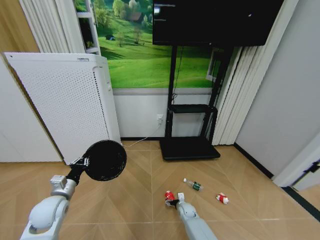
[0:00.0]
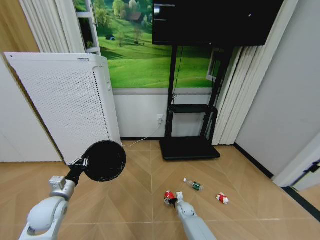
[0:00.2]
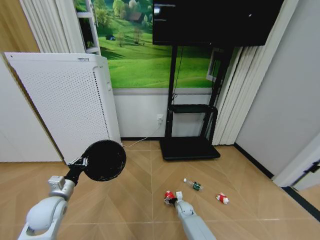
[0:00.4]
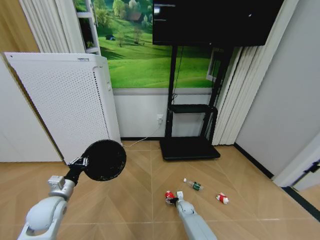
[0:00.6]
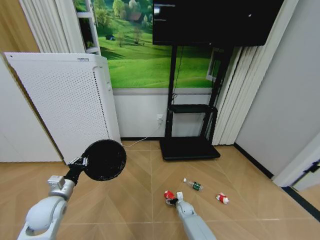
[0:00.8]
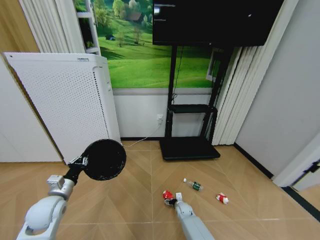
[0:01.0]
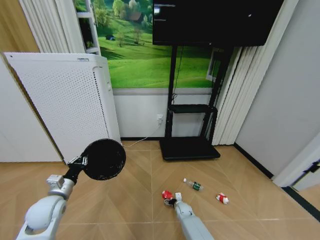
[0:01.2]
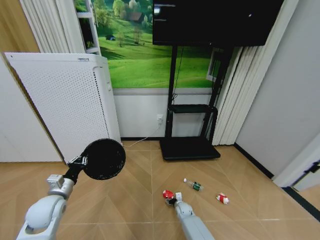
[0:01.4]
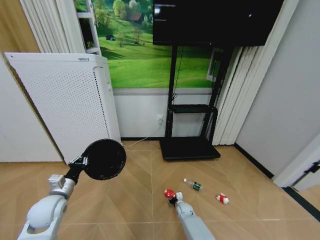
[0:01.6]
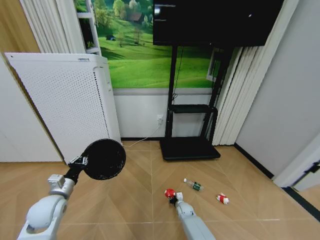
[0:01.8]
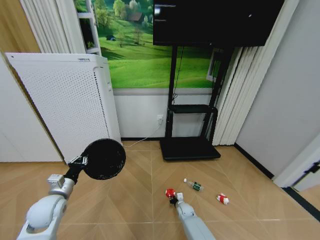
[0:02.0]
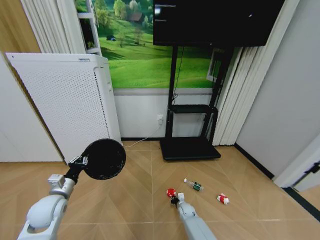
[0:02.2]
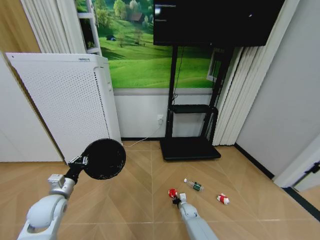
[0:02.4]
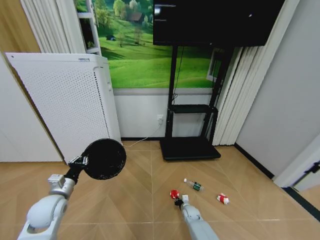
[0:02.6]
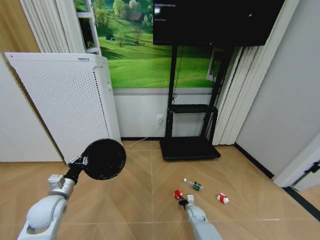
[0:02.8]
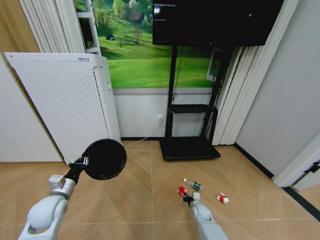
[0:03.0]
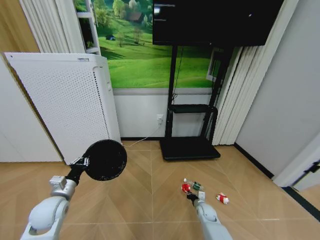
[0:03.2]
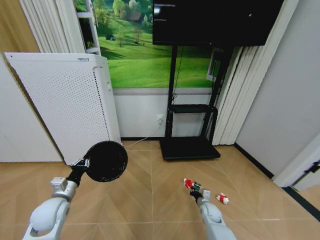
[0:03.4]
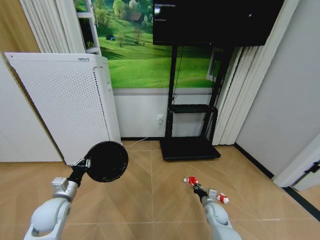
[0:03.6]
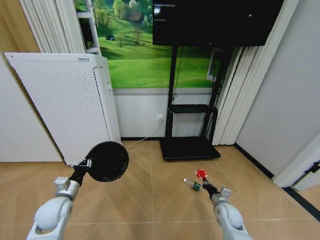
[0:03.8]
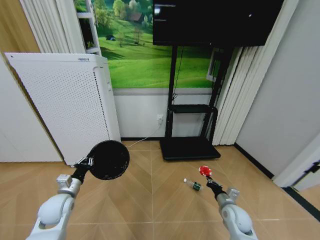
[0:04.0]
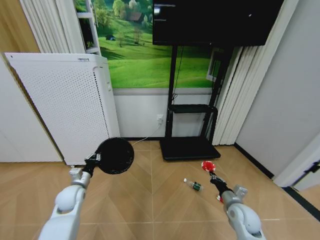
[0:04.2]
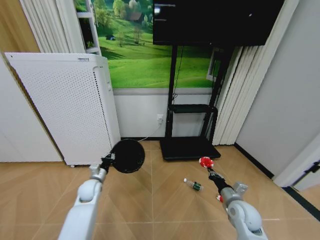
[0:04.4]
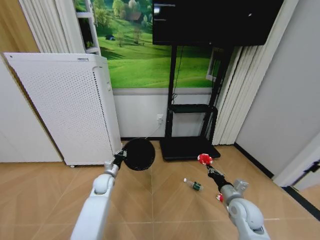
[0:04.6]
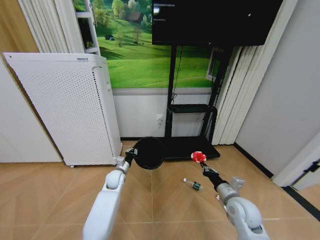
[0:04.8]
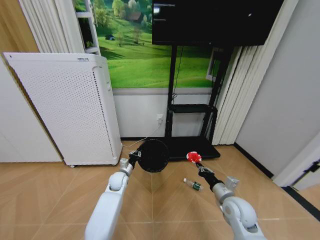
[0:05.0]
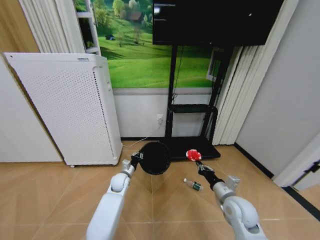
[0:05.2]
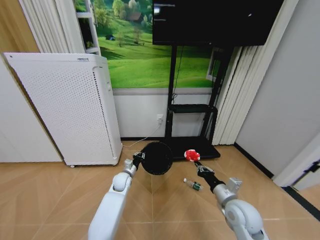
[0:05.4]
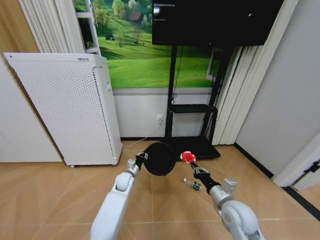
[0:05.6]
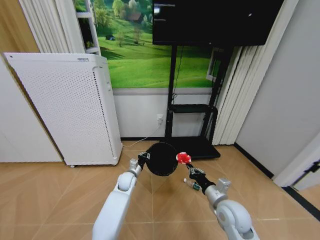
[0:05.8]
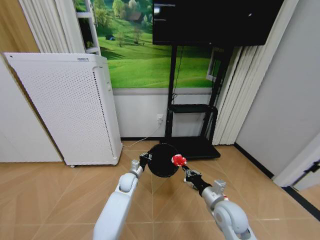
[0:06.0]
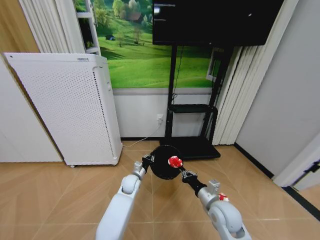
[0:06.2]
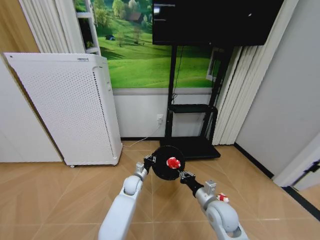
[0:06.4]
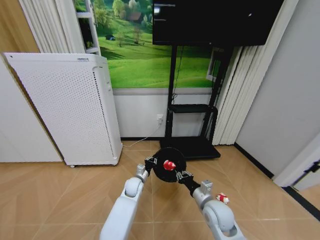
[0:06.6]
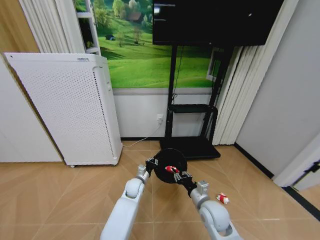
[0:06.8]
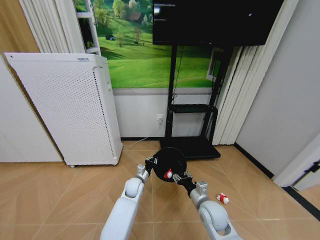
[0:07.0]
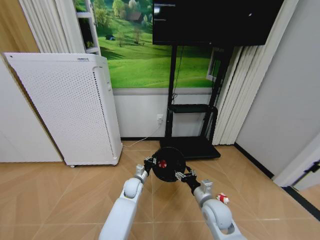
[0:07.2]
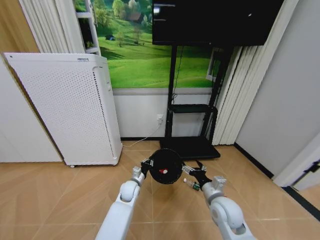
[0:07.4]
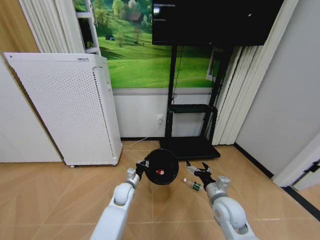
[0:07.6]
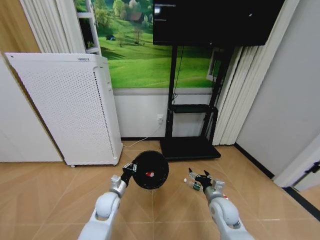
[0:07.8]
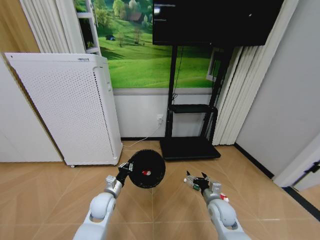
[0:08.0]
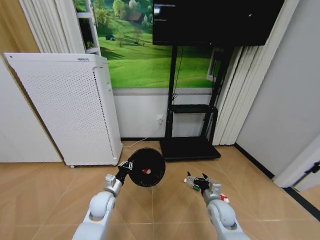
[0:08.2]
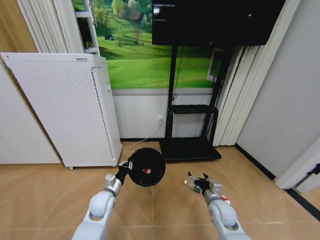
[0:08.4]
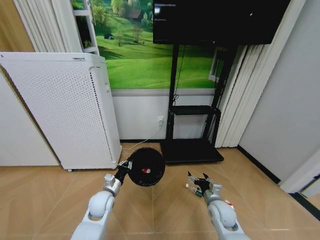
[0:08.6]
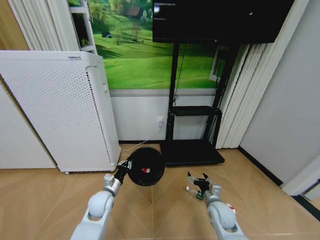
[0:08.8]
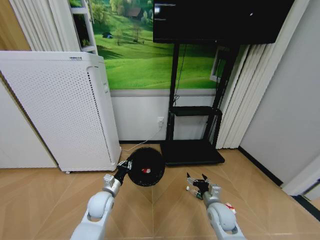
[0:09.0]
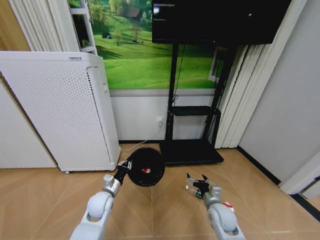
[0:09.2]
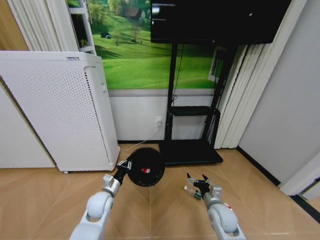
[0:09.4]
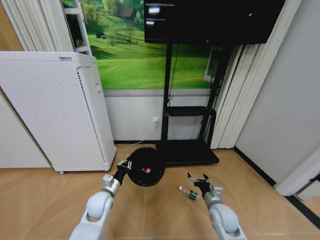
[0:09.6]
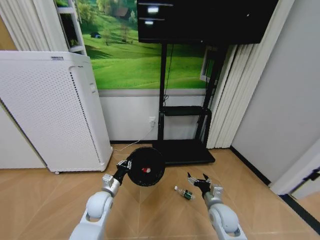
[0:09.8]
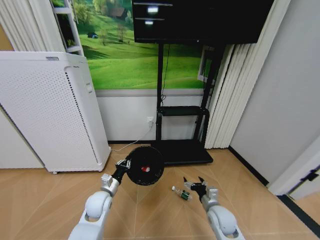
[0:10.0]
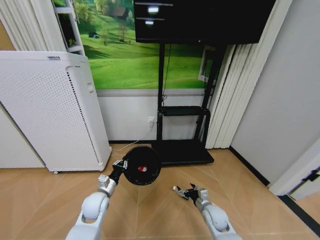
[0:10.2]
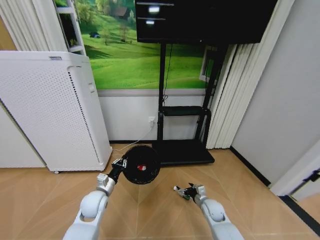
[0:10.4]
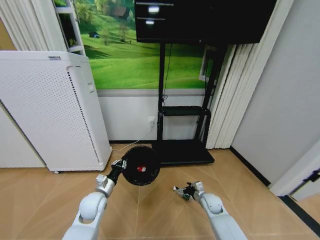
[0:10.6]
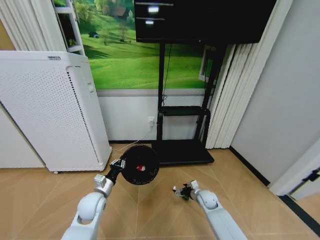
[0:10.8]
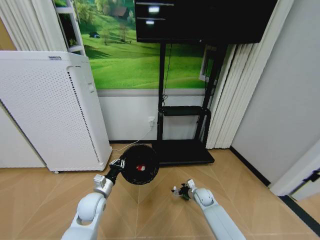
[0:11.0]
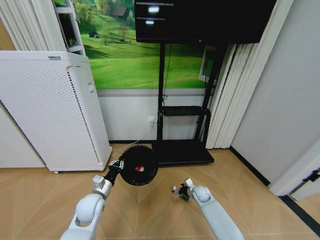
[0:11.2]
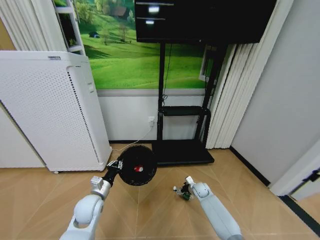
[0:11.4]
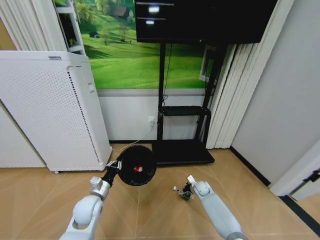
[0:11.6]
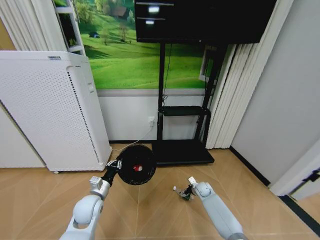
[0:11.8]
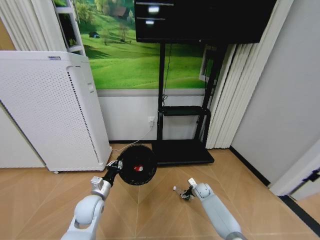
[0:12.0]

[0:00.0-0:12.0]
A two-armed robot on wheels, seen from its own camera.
Task of the whole recording: Pick up the trash bin and place the garbage on the floor into it.
0.0 to 1.6 s: The right gripper closes its fingers.
1.6 to 3.0 s: The right gripper moves to the right, approximately 10 cm, and closes.
3.0 to 4.4 s: The left gripper is displaced forward, downward and to the right by some 15 cm. The right gripper shifts about 25 cm upward.
4.4 to 6.0 s: The right gripper heads to the left, covering some 10 cm. Meanwhile the left gripper moves to the right, approximately 15 cm.
6.0 to 7.6 s: The right gripper opens. Meanwhile the left gripper goes roughly 5 cm backward.
7.6 to 9.0 s: The left gripper shifts some 10 cm to the left and backward; the right gripper travels downward by some 5 cm.
9.0 to 10.4 s: The right gripper travels downward by approximately 10 cm.
10.4 to 12.0 s: The right gripper travels forward and downward by about 15 cm.

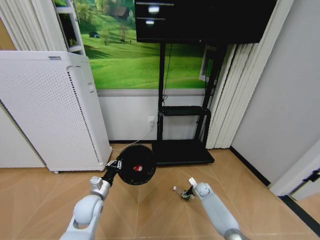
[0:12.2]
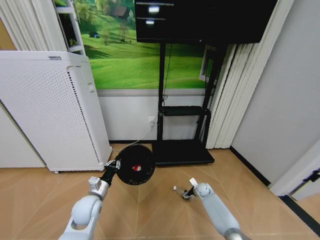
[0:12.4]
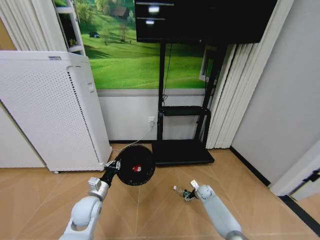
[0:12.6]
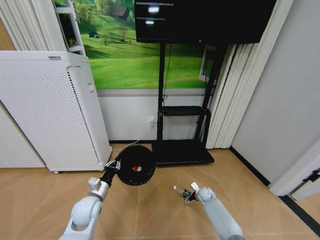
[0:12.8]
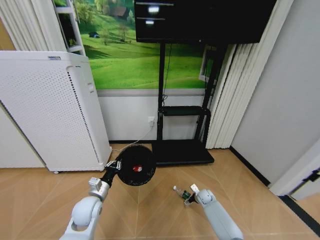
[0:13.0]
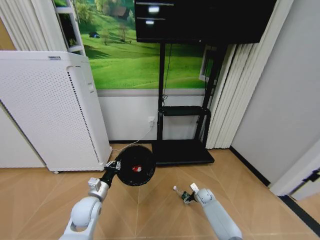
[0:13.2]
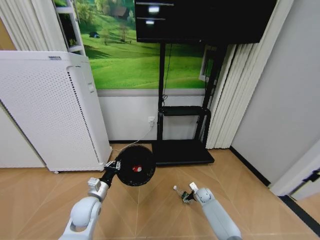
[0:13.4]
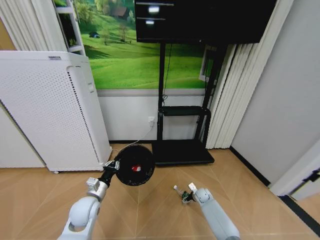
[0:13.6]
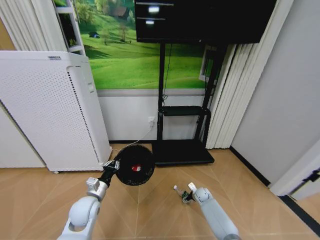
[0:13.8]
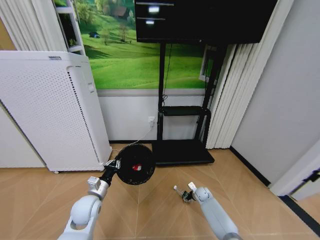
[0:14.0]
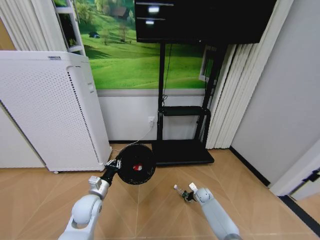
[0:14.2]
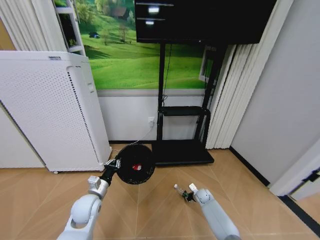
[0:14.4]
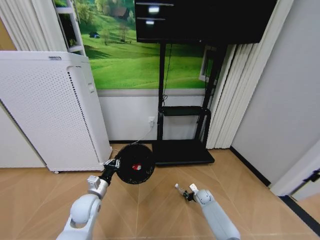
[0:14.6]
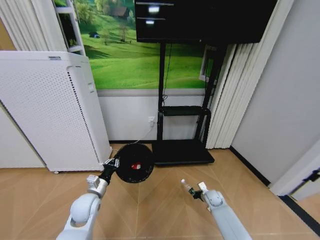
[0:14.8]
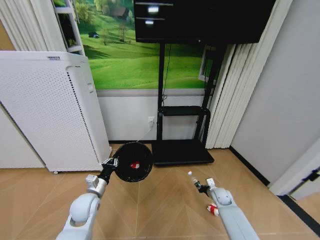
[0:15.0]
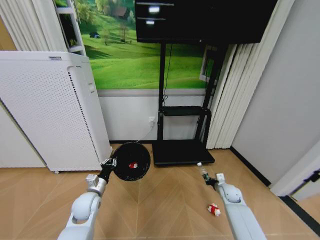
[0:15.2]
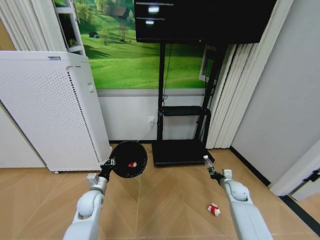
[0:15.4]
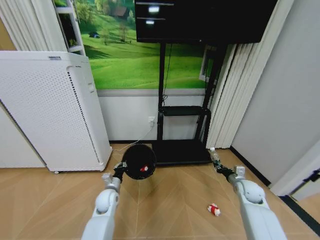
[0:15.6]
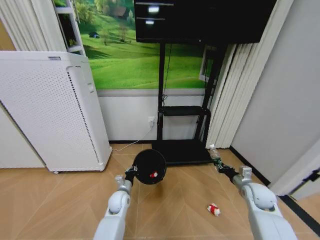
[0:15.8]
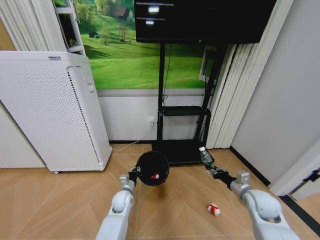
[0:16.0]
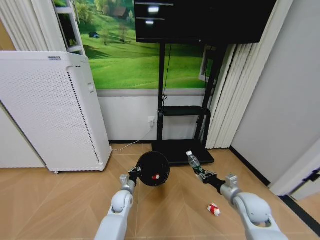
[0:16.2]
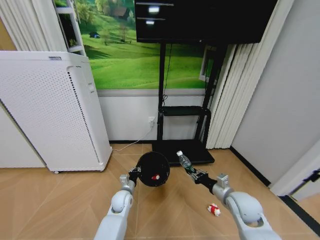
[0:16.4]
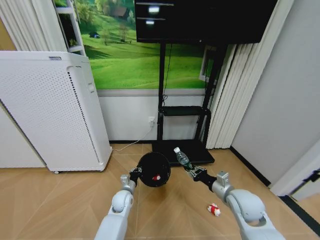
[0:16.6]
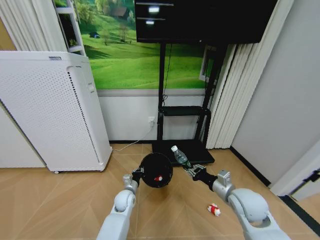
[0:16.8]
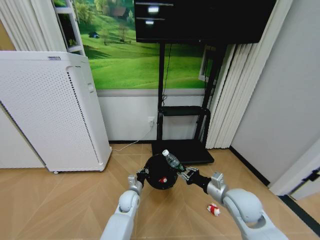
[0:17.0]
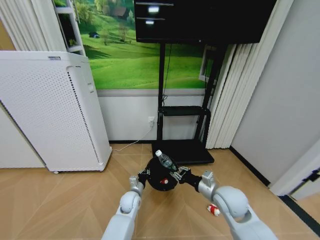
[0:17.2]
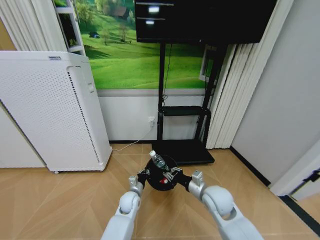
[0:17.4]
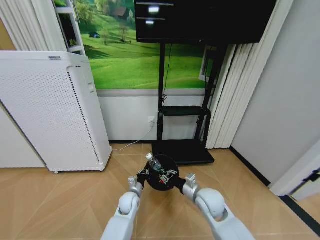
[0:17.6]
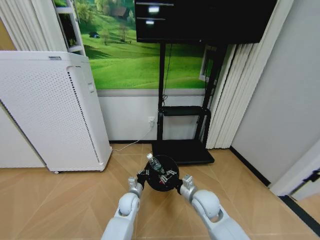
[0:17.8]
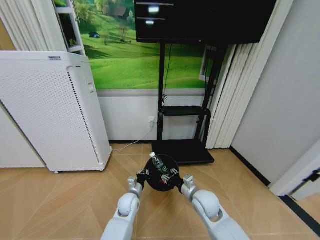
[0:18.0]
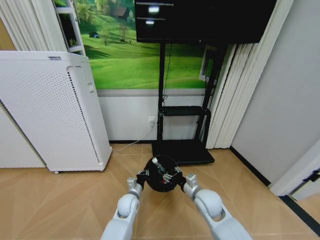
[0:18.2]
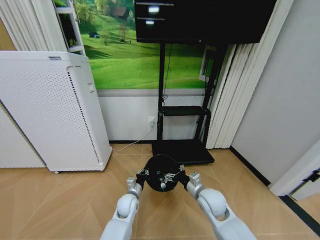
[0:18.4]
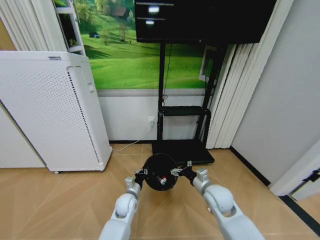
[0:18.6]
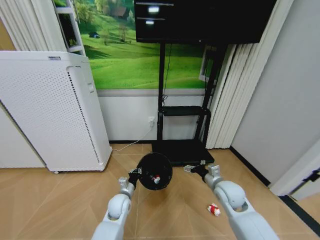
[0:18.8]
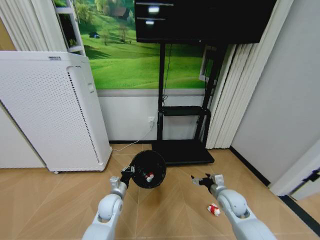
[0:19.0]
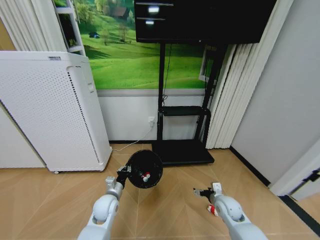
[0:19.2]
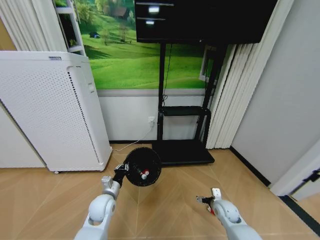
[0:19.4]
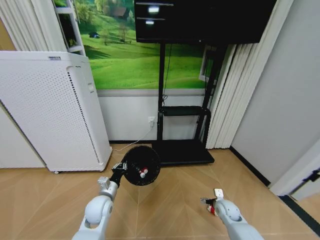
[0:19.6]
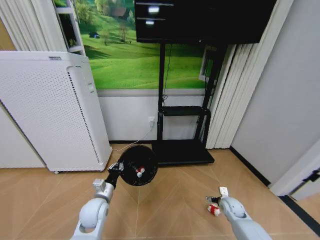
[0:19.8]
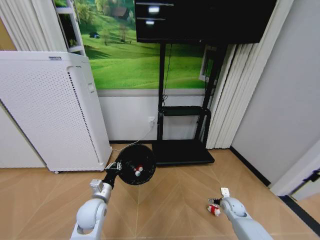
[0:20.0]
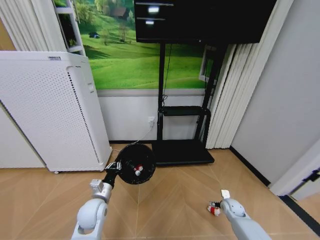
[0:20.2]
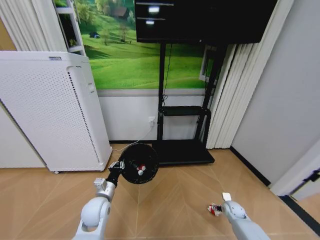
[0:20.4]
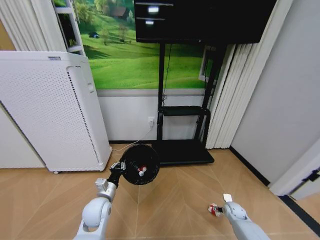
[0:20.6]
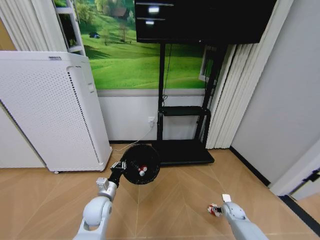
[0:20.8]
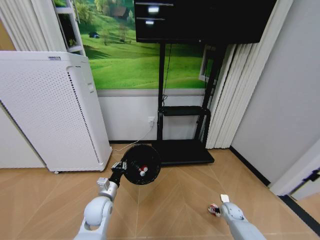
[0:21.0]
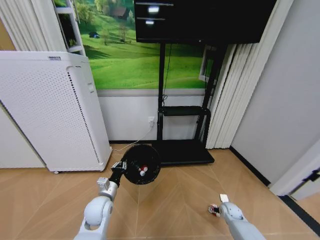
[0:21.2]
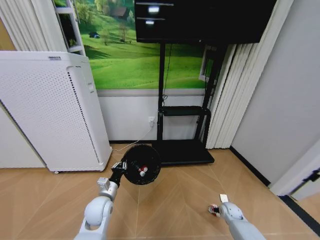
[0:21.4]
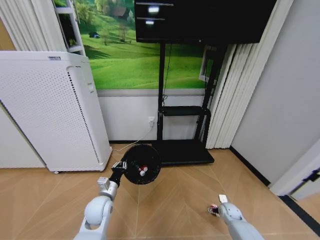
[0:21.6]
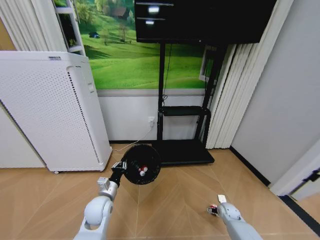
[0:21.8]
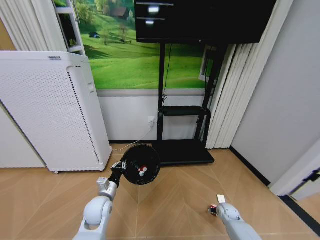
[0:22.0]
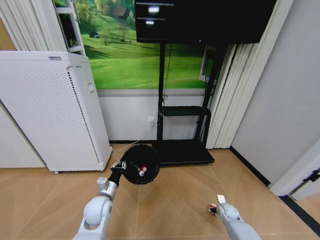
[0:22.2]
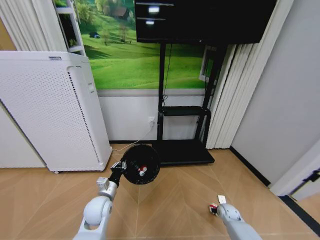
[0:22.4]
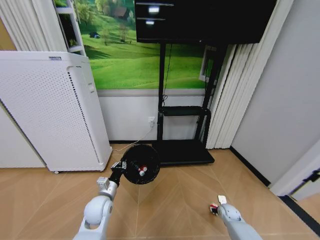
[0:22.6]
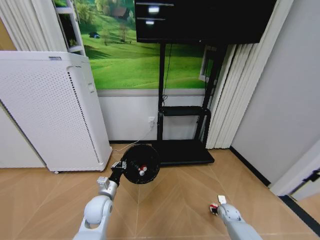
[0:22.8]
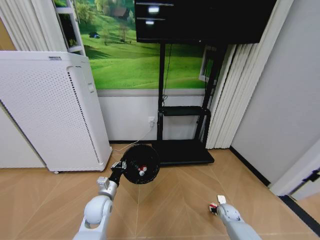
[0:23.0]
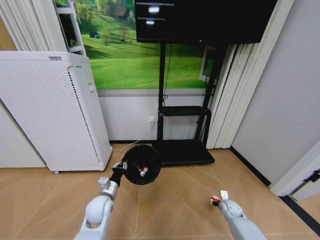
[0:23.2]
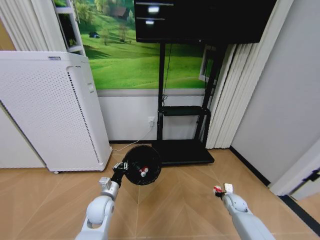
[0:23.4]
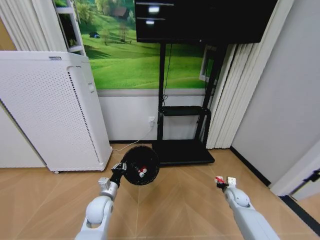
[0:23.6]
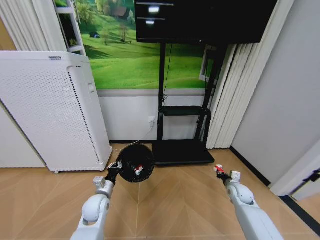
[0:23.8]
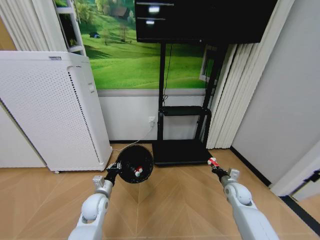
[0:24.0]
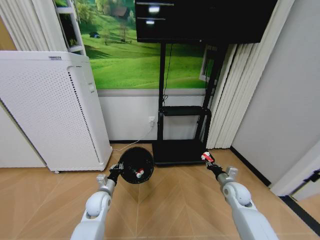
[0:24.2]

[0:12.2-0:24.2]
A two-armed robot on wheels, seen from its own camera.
Task of the whole recording: Pick up the trash bin and place the garbage on the floor into it.
12.2 to 13.8 s: The grippers stay close to where they were, moving slightly.
13.8 to 15.2 s: The right gripper heads upward and to the right, covering about 15 cm, and closes its fingers.
15.2 to 16.6 s: The right gripper is displaced upward, backward and to the left by about 20 cm. The left gripper is displaced to the right and downward by roughly 15 cm.
16.6 to 18.2 s: The right gripper travels to the left by roughly 10 cm, and opens up.
18.2 to 19.8 s: The right gripper heads to the right and downward, covering about 25 cm; the left gripper shifts about 15 cm to the left, upward and backward.
19.8 to 21.2 s: The right gripper shifts some 5 cm downward.
21.2 to 22.6 s: The right gripper closes its fingers.
22.6 to 24.2 s: The left gripper moves roughly 5 cm, while the right gripper heads upward, covering roughly 20 cm.
